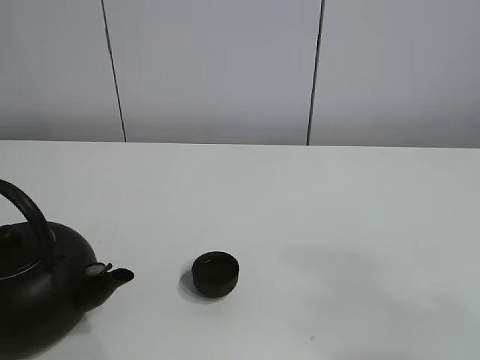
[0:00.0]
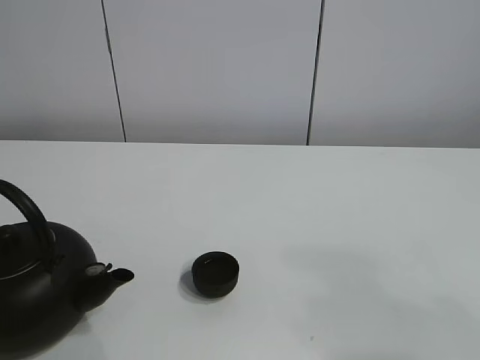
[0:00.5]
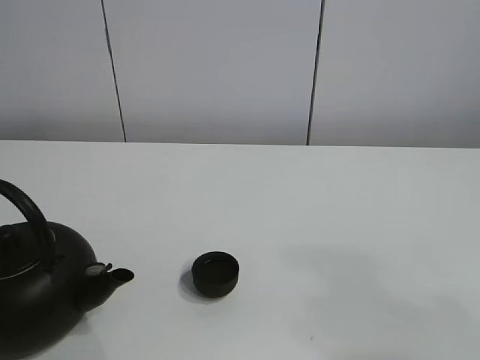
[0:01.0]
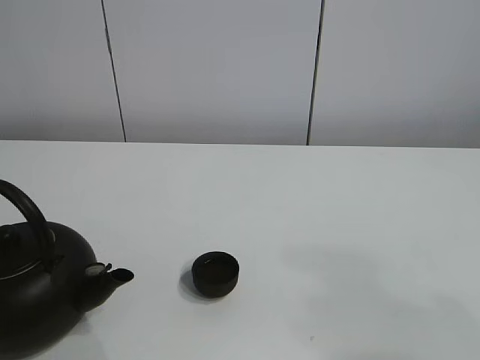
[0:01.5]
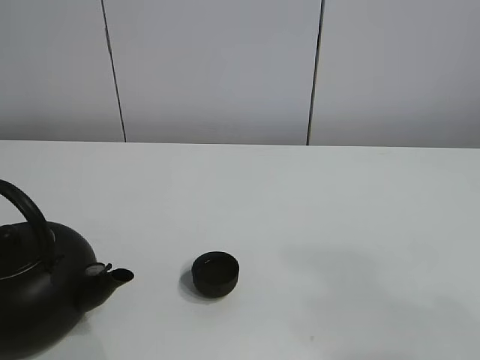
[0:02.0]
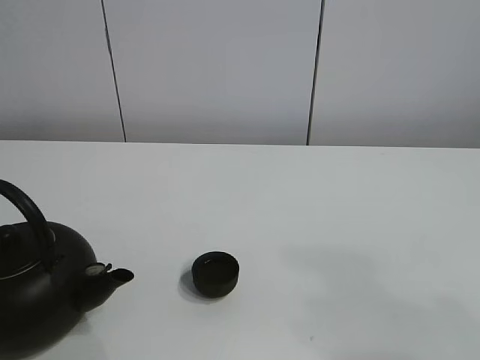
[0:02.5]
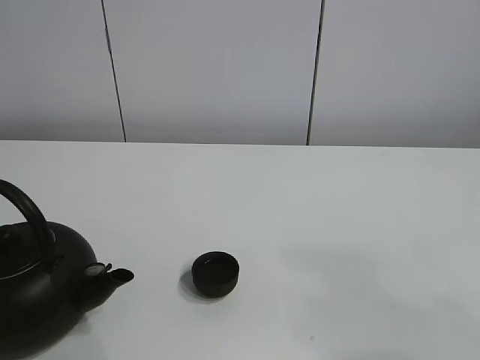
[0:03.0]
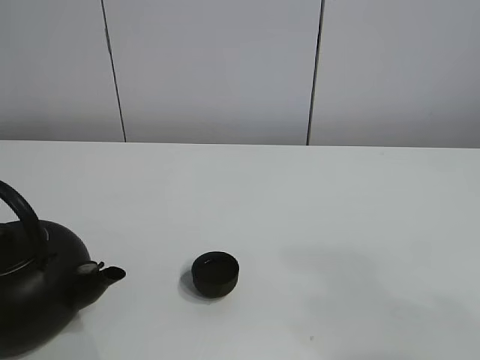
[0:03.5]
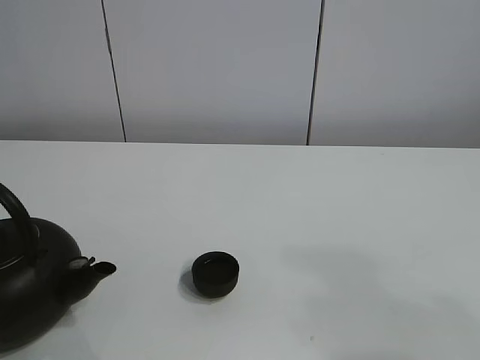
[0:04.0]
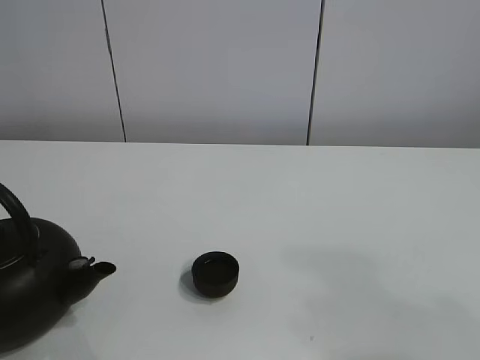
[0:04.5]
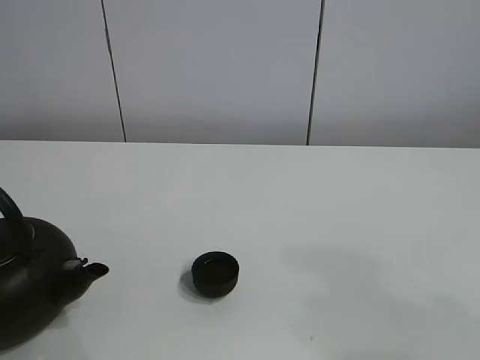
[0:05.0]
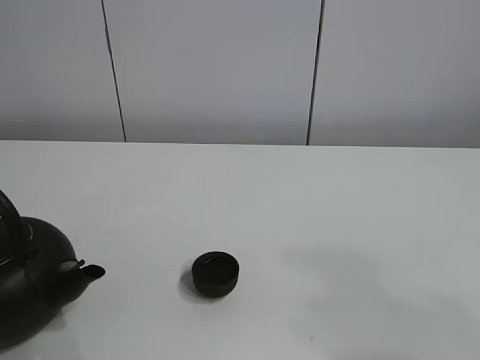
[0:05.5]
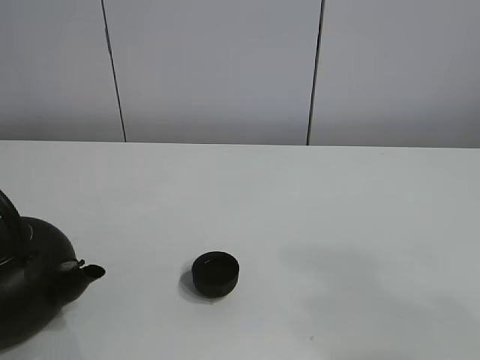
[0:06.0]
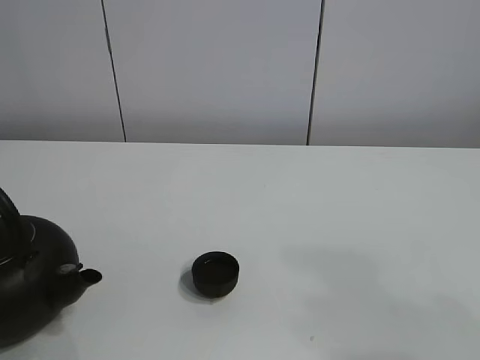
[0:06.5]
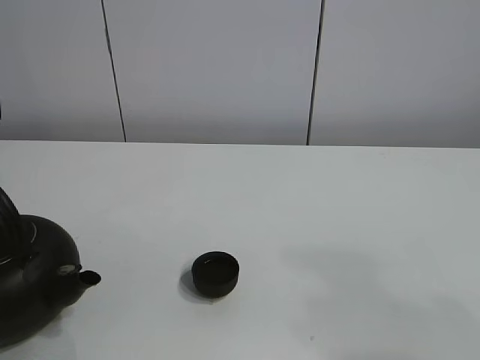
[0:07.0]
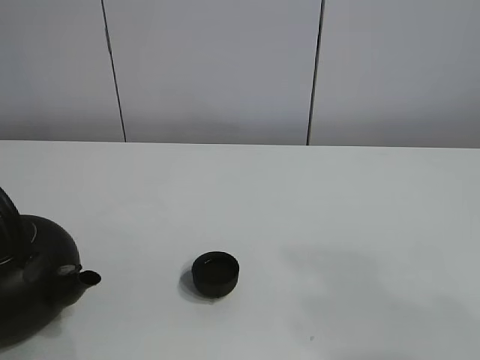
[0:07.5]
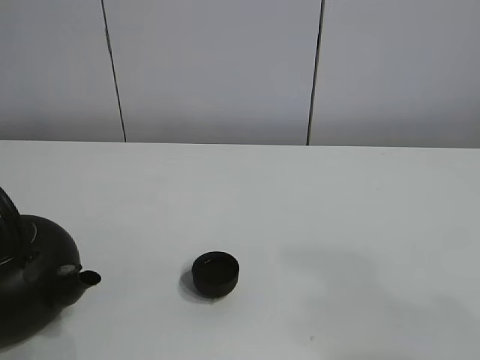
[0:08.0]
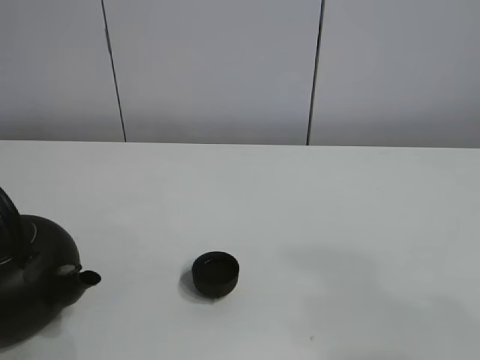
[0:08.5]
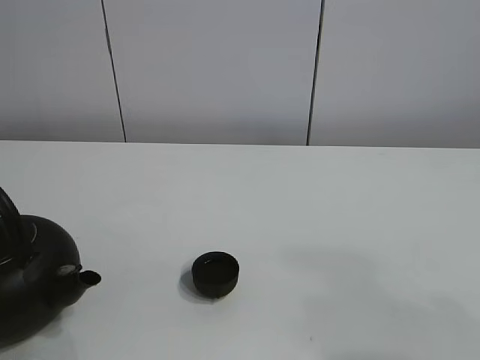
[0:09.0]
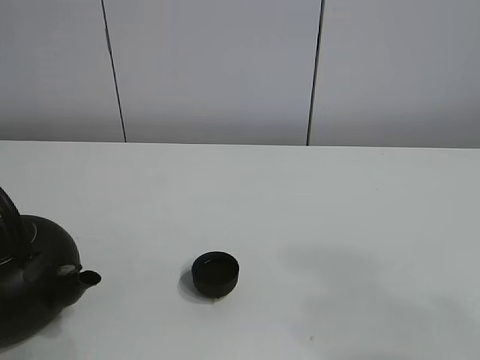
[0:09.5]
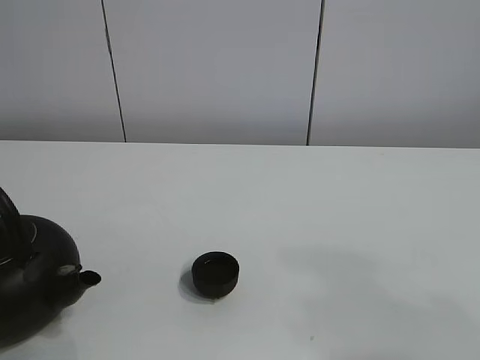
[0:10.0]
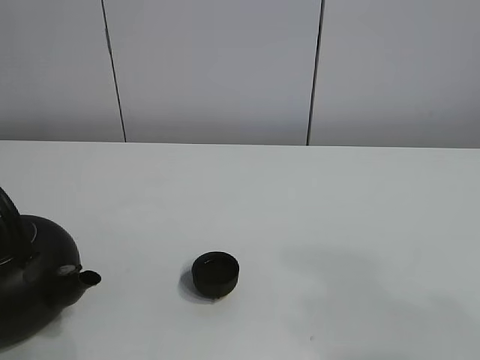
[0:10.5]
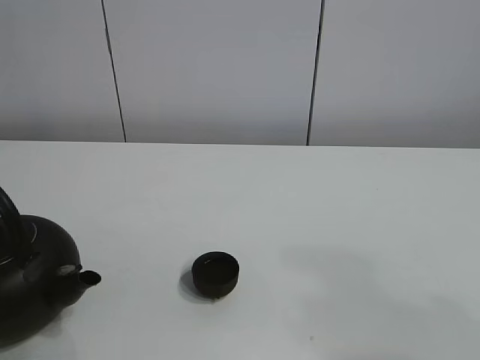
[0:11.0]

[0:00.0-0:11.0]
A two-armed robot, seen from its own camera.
Task of the whole recording: pour tea into the teacup.
0:02.0 to 0:05.5: There are only small adjustments of the grippers.
0:05.5 to 0:07.5: The left gripper heads upward and forward, covering about 20 cm.

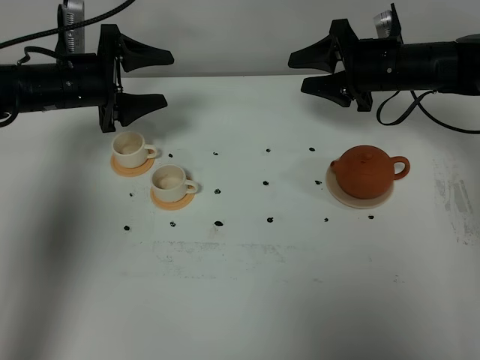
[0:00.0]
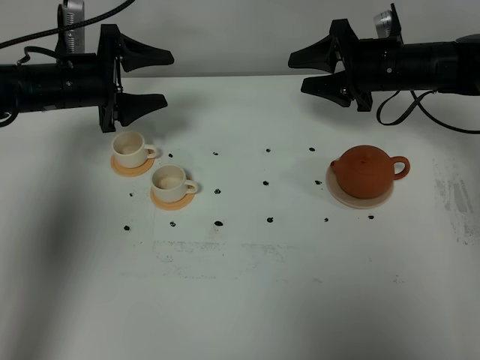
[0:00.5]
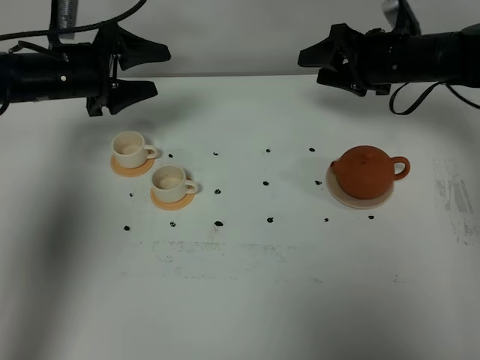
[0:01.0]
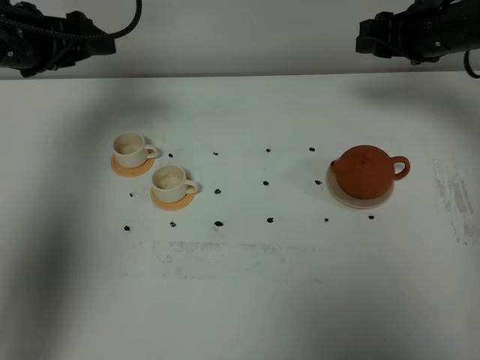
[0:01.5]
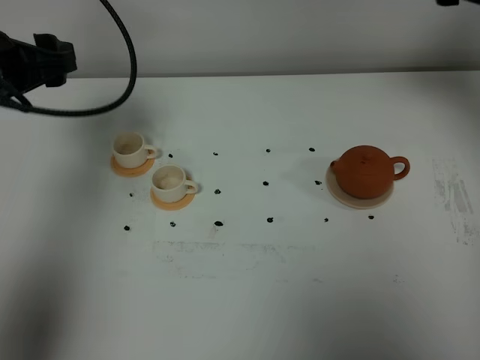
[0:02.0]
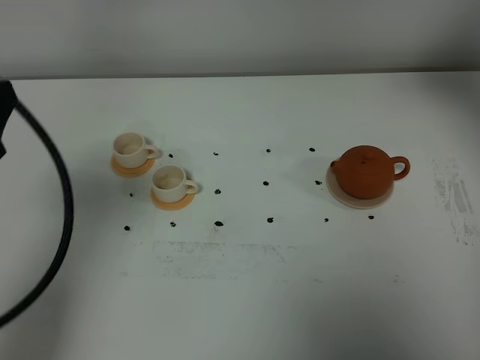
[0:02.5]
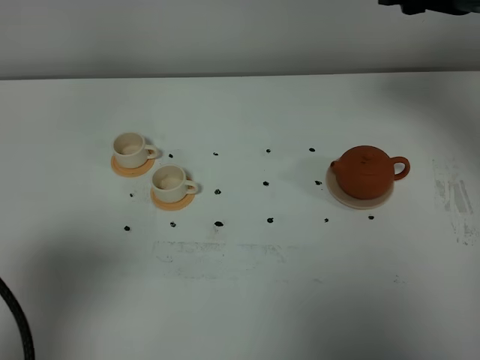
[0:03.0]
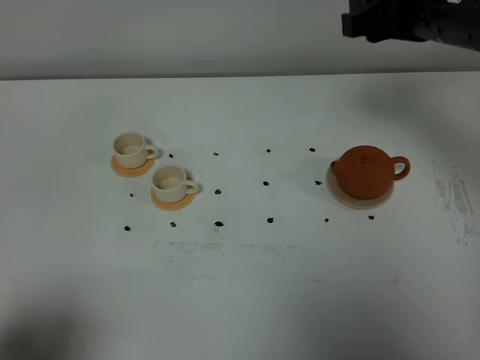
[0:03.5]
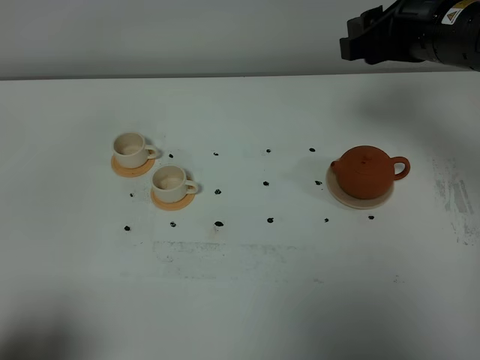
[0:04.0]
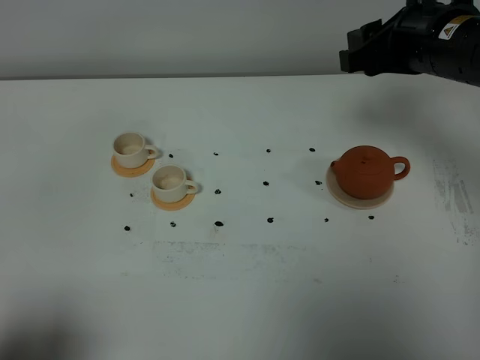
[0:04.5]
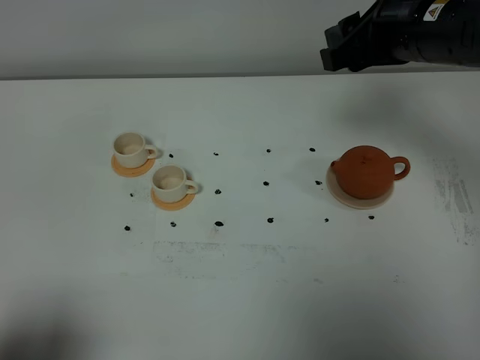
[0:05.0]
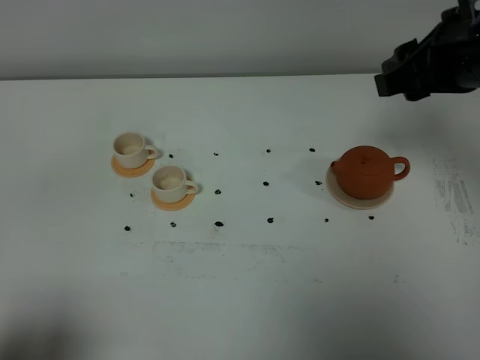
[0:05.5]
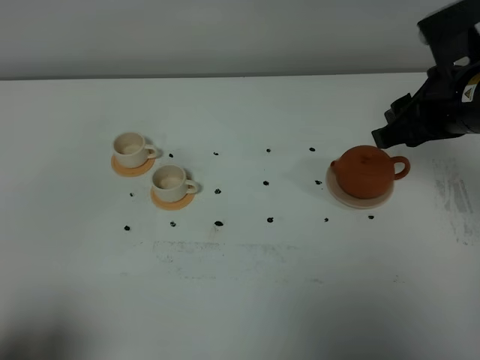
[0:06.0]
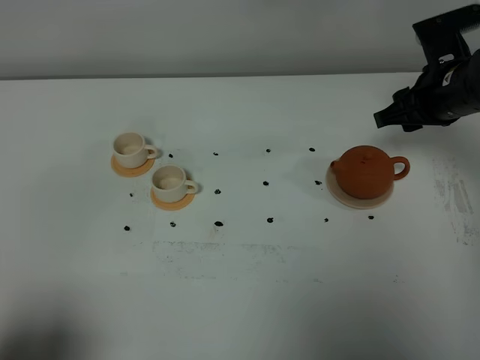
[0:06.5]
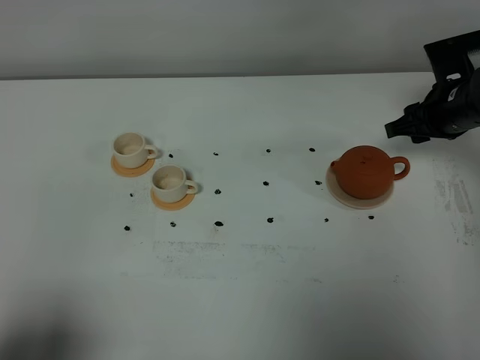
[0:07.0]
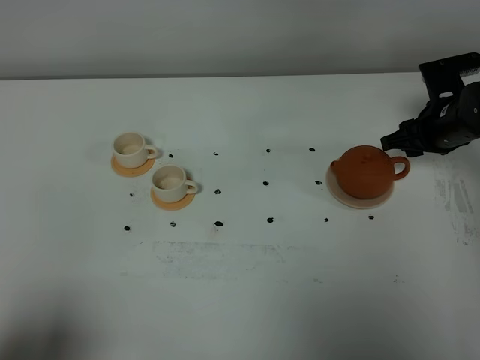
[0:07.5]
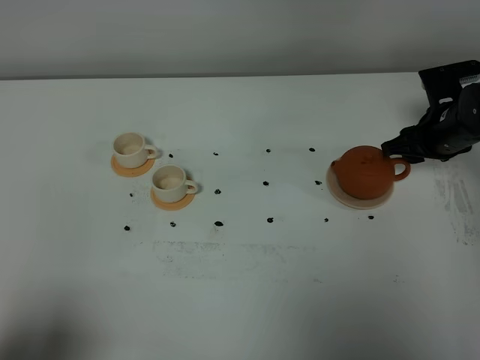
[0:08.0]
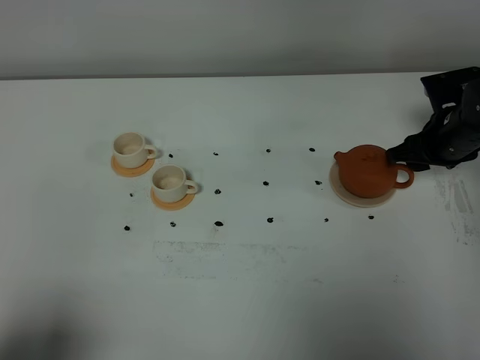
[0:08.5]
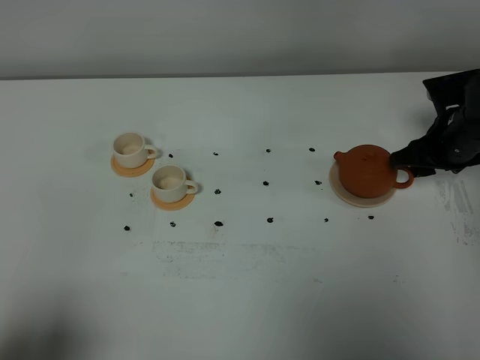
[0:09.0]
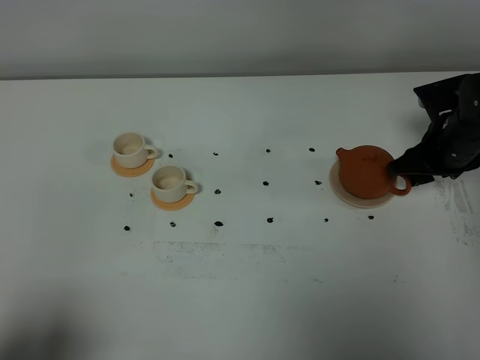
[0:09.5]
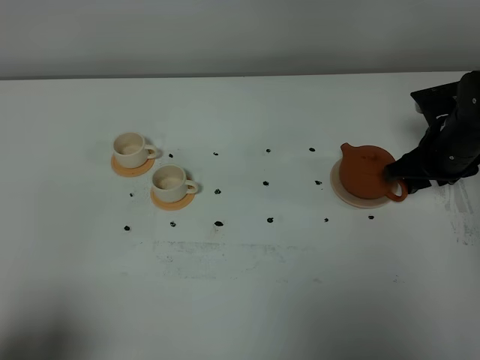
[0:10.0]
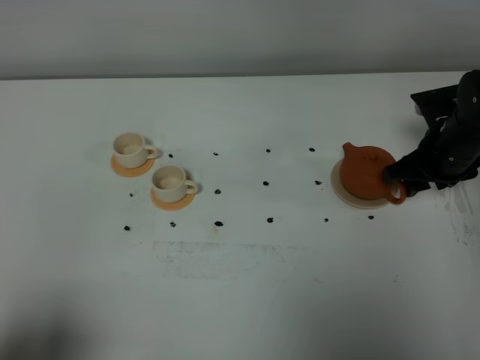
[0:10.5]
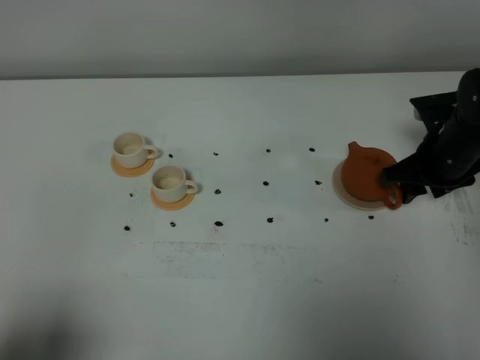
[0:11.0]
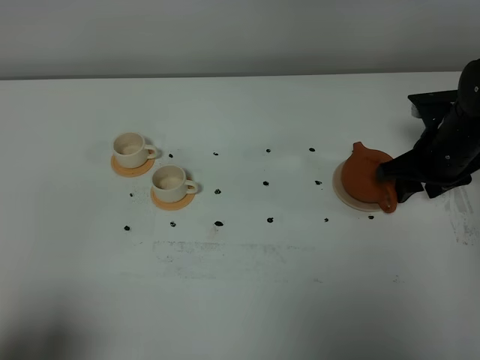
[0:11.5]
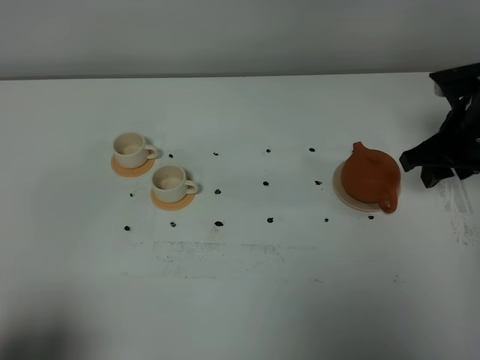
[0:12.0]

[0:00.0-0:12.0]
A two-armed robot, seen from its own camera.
Task of the whole recording: grasp the brown teapot and pour the tea into the two white teacups one by one, put the brown teapot back in its original place.
0:00.0 to 0:02.0: The left gripper moves backward and upward, roughly 15 cm. Meanwhile the right gripper heads upward and backward, covering some 20 cm.
0:02.0 to 0:04.0: The left gripper shifts some 35 cm backward, while the right gripper goes some 10 cm to the left.
0:04.0 to 0:06.0: The right gripper shifts by roughly 5 cm.
0:06.0 to 0:08.0: The right gripper goes about 20 cm downward, forward and to the right.
0:08.0 to 0:10.0: The grippers make only small movements.
0:10.0 to 0:12.0: The right gripper goes approximately 5 cm upward.

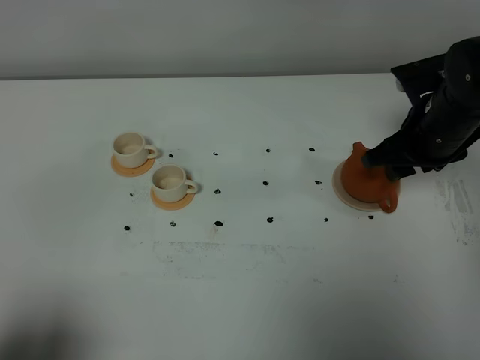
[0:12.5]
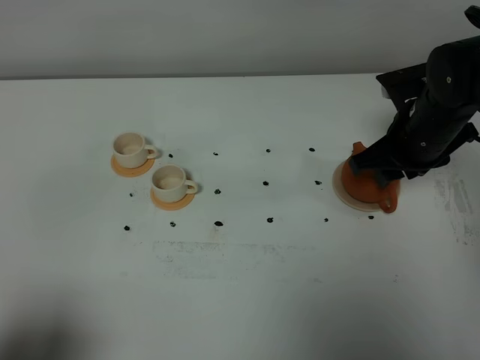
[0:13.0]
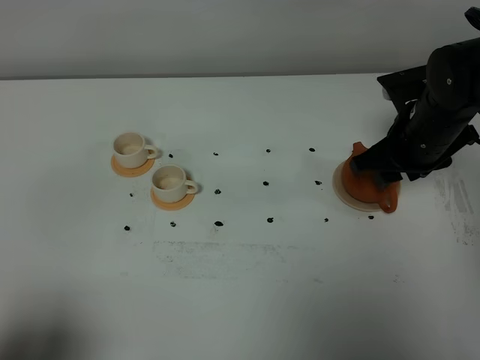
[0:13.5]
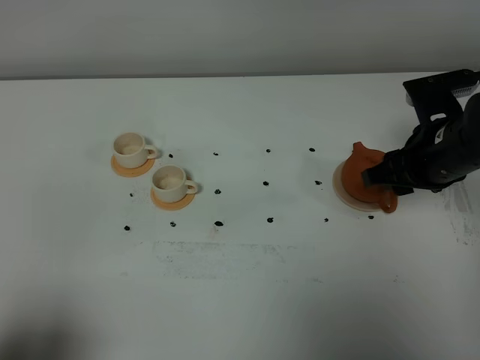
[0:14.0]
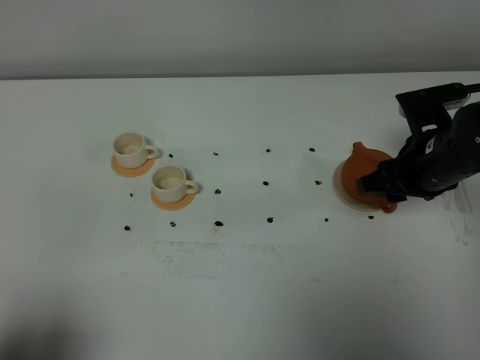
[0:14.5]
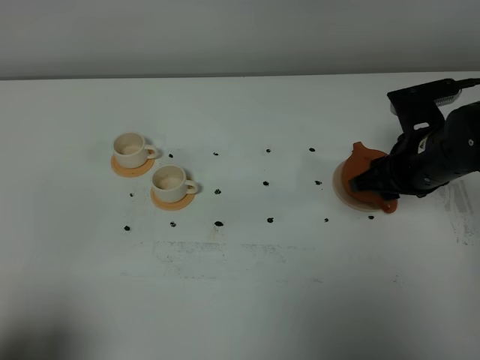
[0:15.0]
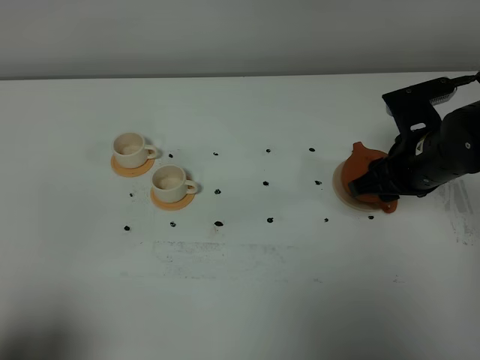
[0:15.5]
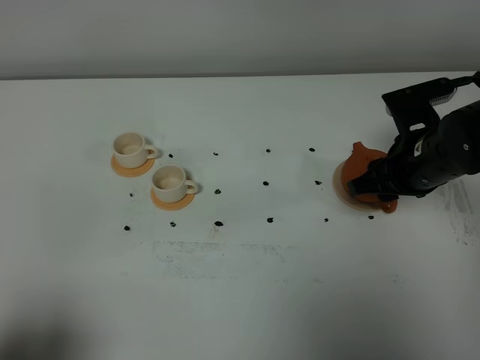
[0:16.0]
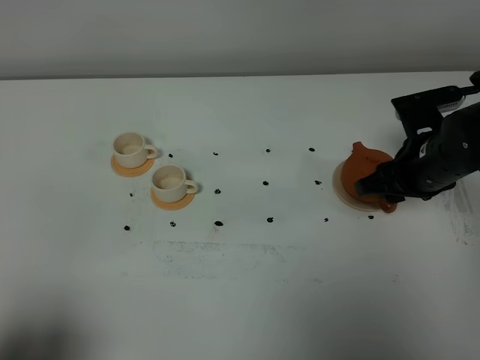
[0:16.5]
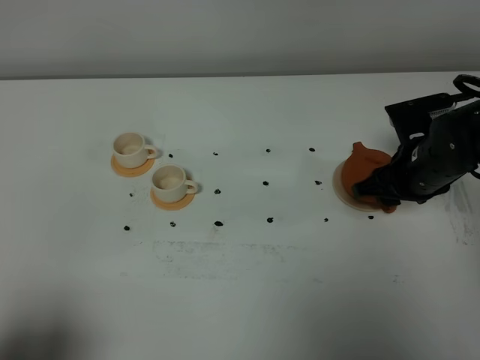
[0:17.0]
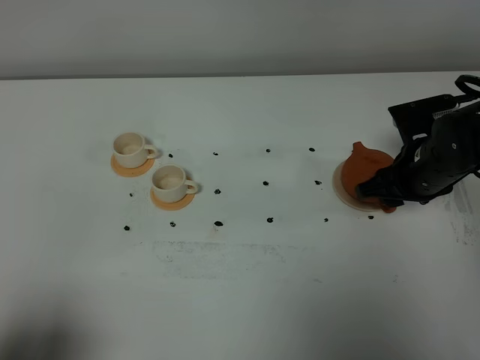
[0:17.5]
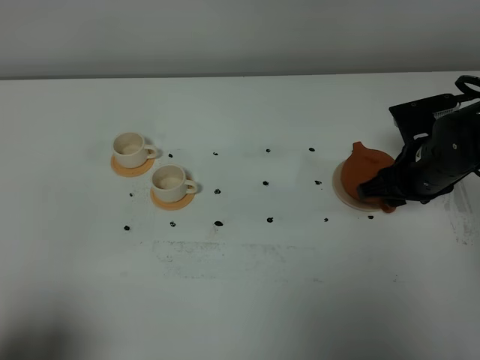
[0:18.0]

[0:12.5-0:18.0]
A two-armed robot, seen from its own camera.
Task of the whole recording: grasp the brown teapot and pour the tea into the two white teacups one by one, put the brown teapot back in its original place.
0:12.5 to 0:16.0: There are only small adjustments of the grippers.
0:16.0 to 0:18.0: The right gripper changes place by roughly 5 cm.
